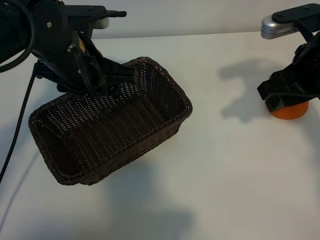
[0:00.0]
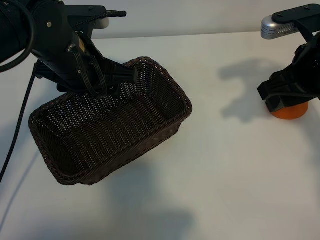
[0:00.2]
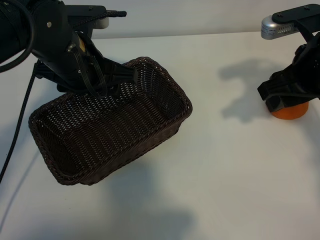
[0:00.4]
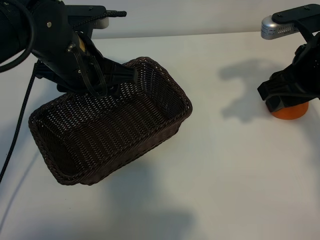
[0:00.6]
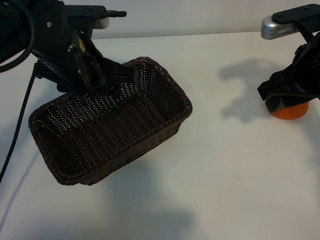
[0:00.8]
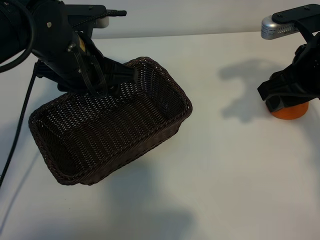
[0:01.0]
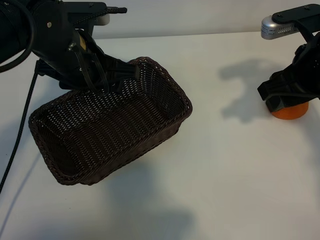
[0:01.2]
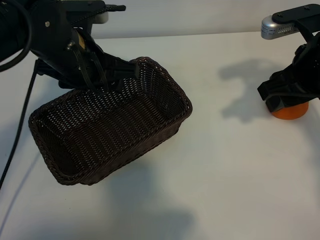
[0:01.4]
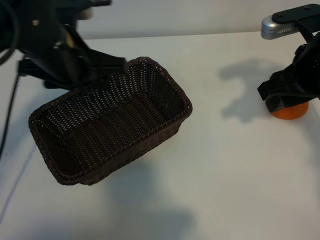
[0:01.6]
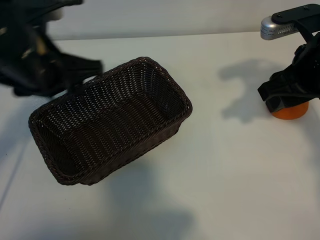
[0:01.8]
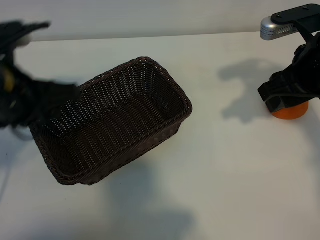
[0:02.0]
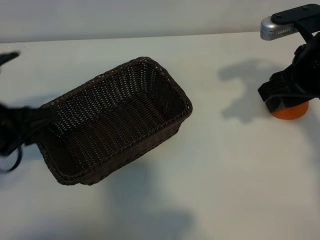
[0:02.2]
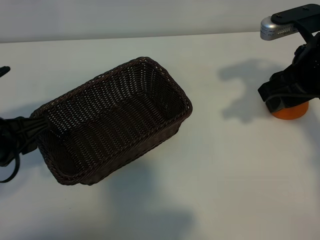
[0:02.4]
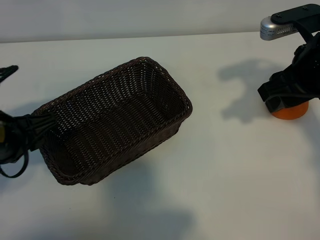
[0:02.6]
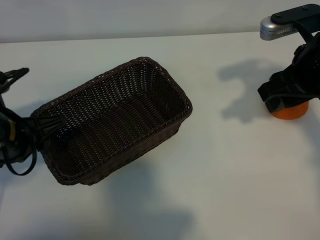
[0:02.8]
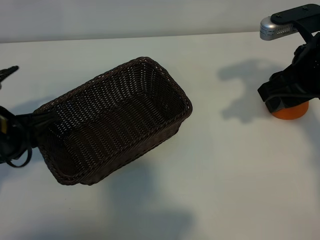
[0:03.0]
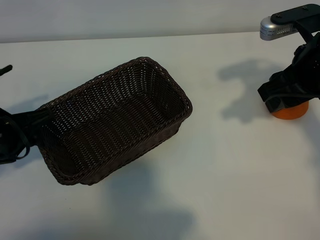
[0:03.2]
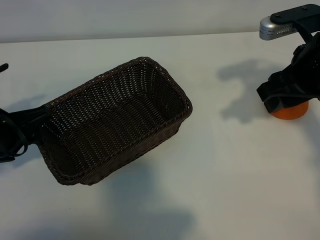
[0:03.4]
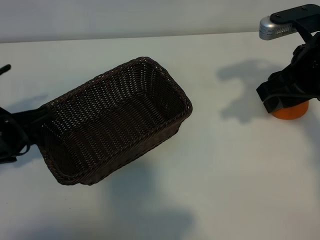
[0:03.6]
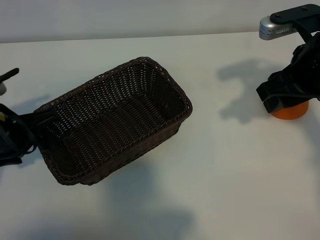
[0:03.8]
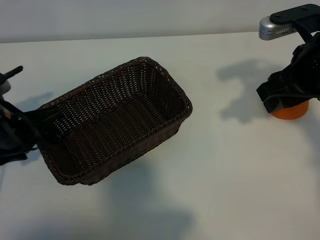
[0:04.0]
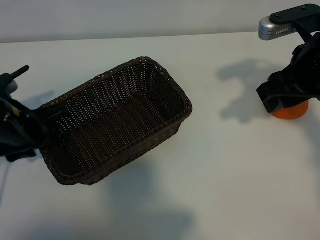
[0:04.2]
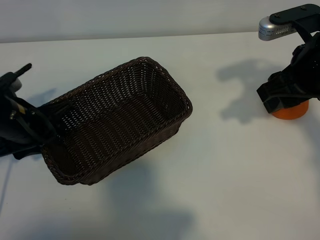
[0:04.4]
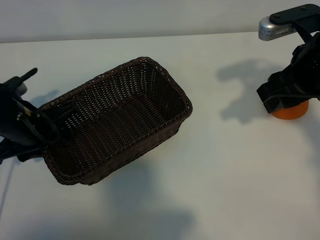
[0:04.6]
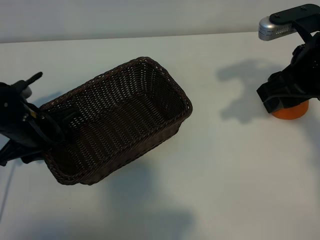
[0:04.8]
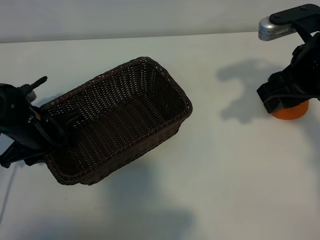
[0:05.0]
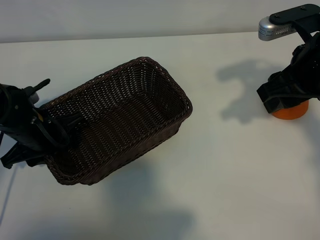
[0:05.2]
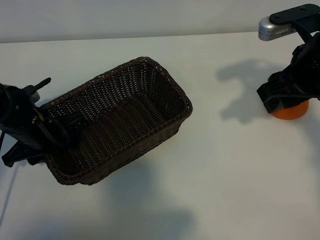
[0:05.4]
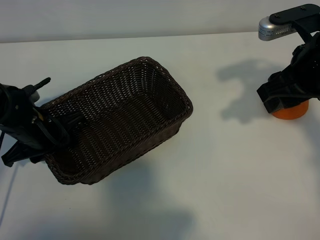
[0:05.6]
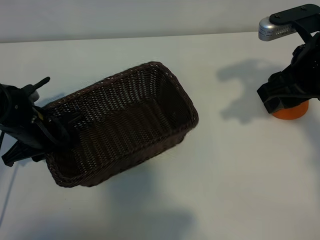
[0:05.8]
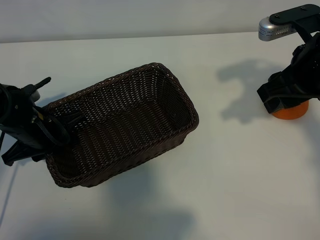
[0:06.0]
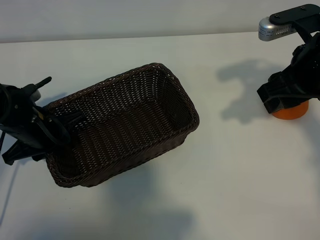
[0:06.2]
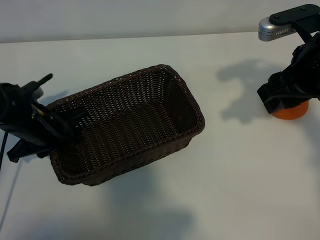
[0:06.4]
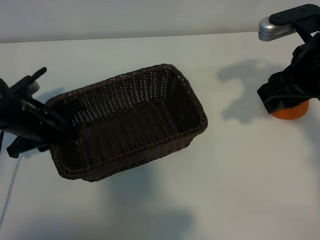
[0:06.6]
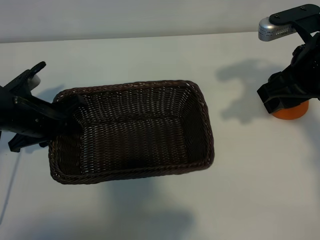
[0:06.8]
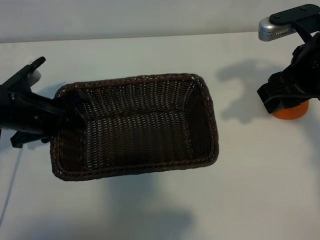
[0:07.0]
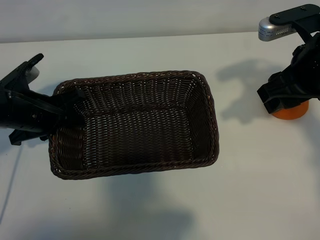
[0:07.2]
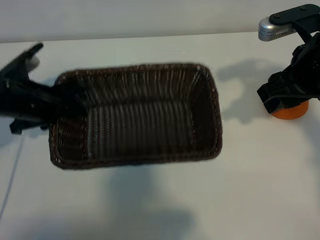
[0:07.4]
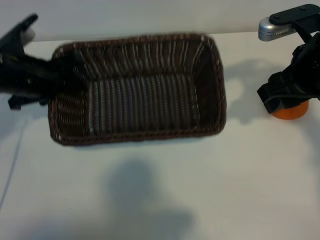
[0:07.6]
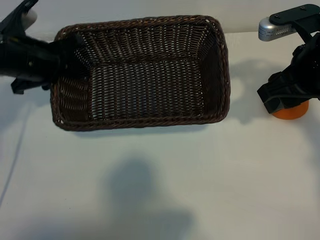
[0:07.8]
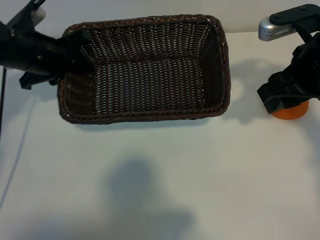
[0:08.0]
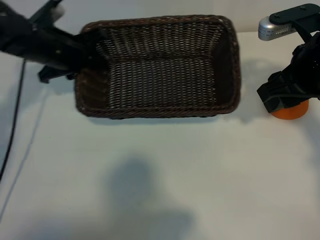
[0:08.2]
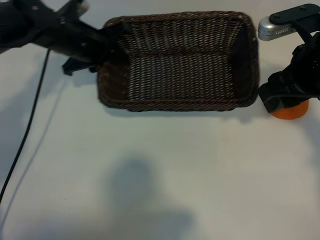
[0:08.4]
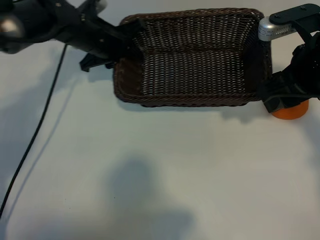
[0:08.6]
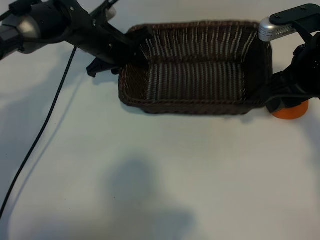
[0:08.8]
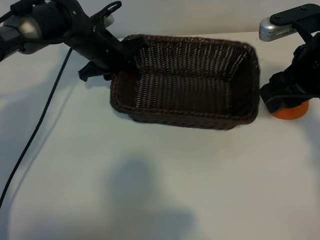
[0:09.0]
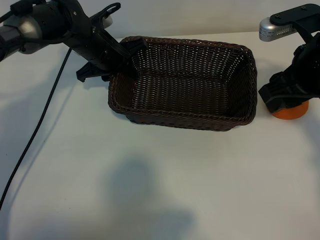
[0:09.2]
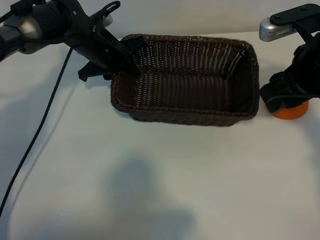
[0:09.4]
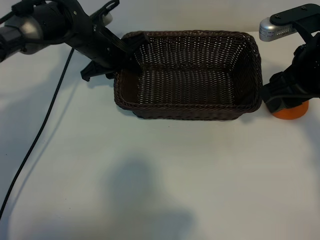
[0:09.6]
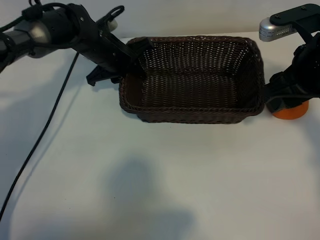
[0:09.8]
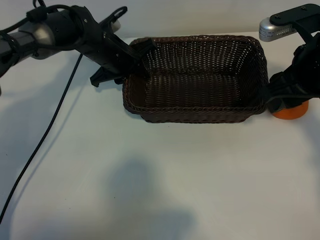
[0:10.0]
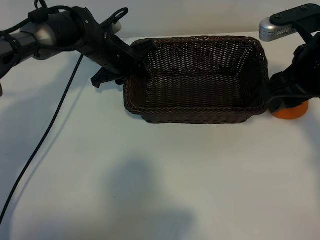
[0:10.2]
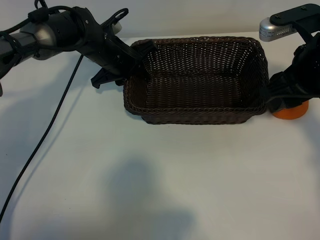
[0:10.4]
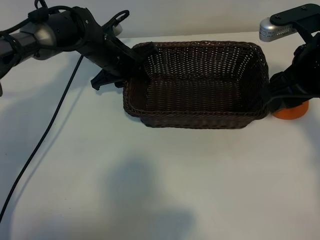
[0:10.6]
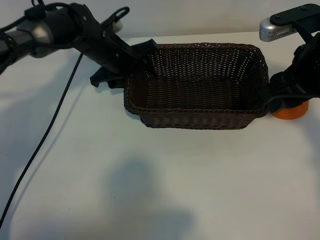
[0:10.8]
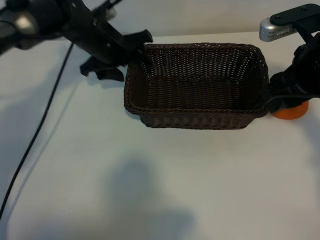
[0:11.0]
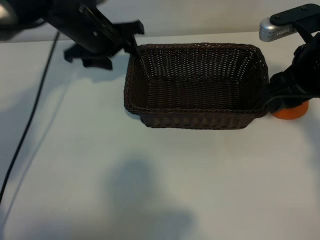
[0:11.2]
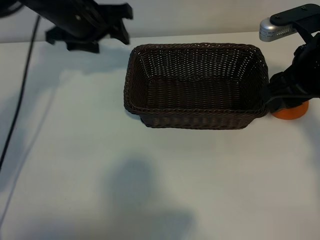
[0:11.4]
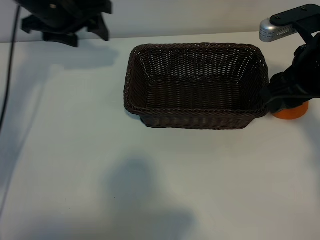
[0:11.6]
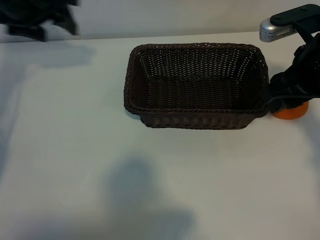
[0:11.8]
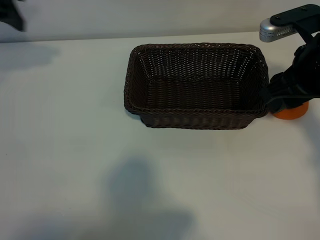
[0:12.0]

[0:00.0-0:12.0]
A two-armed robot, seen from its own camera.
Task of the whole recording: pick up the orange and put it into the basket.
Step, 0:01.0 to 0:05.8: Grasp the basket with left gripper.
Step, 0:06.0 to 0:10.6: Place the basket in the center of view with left gripper.

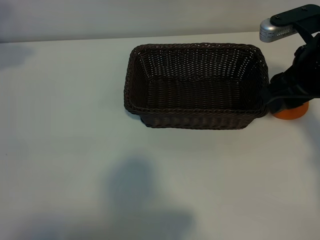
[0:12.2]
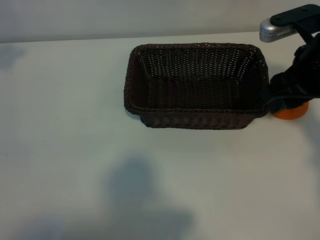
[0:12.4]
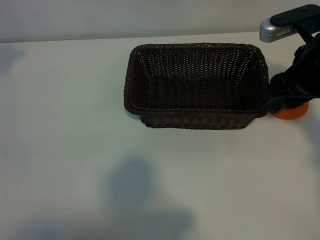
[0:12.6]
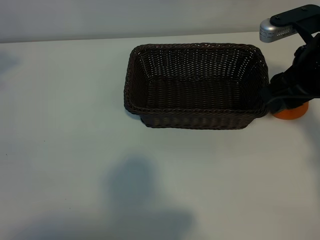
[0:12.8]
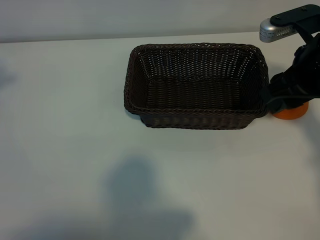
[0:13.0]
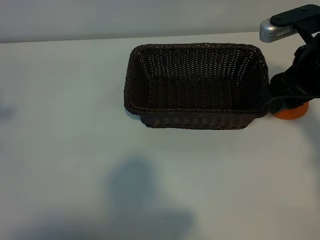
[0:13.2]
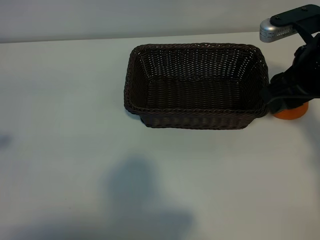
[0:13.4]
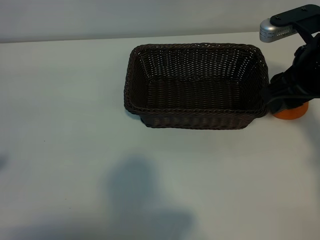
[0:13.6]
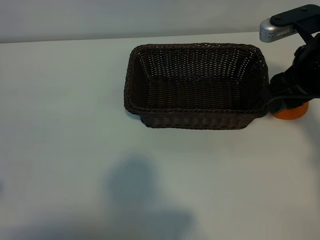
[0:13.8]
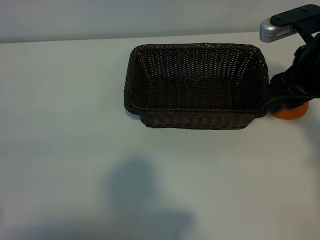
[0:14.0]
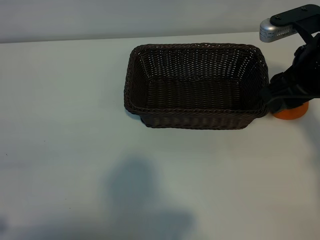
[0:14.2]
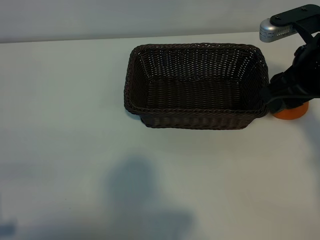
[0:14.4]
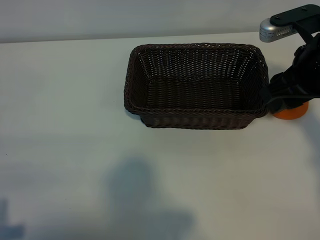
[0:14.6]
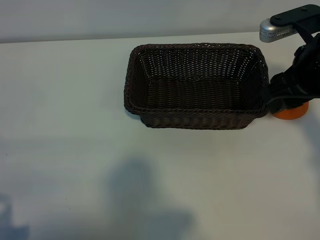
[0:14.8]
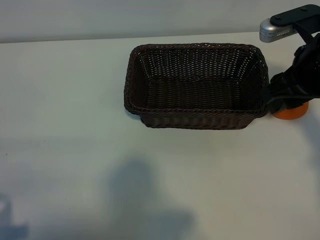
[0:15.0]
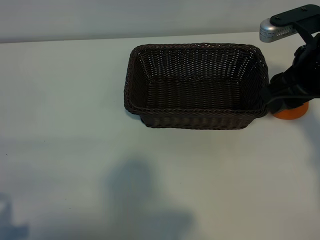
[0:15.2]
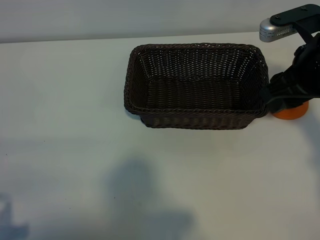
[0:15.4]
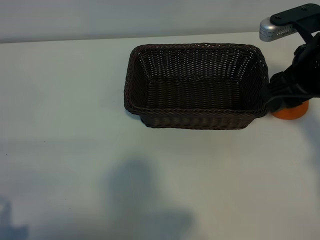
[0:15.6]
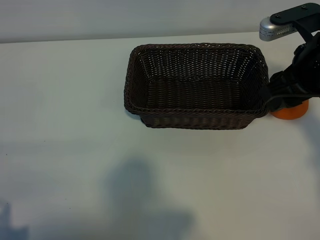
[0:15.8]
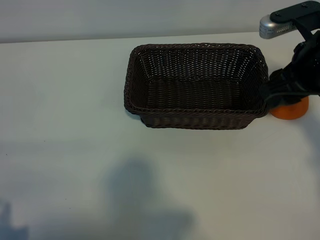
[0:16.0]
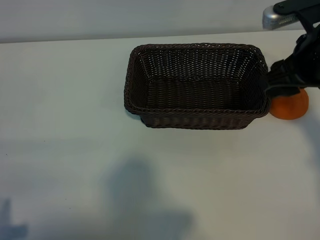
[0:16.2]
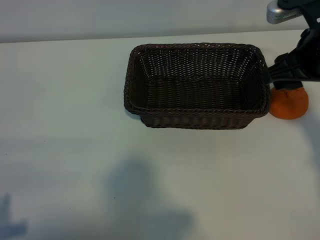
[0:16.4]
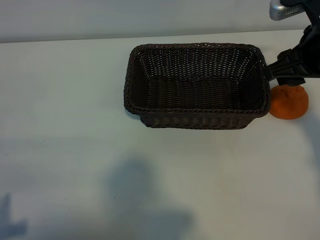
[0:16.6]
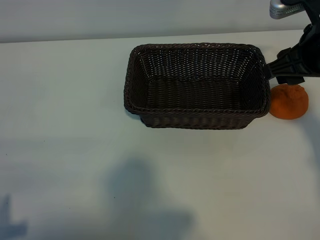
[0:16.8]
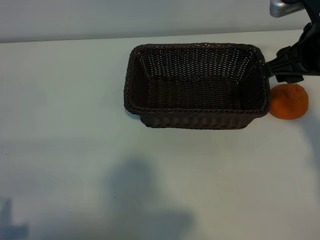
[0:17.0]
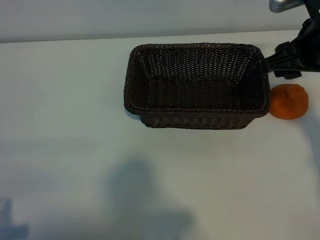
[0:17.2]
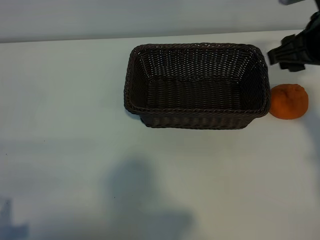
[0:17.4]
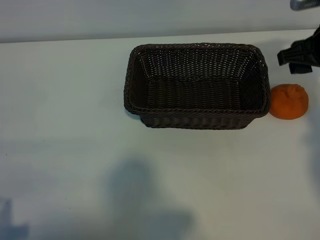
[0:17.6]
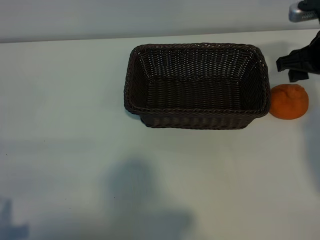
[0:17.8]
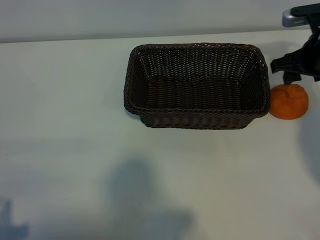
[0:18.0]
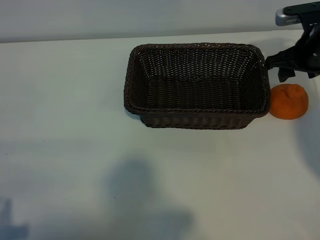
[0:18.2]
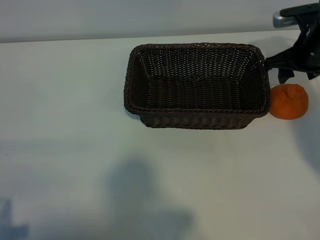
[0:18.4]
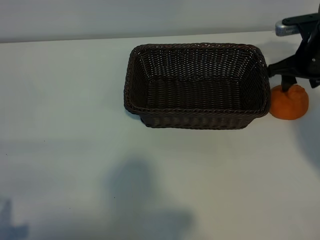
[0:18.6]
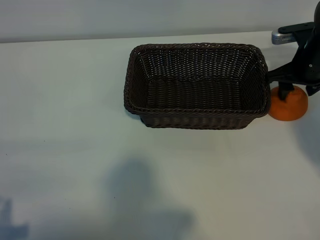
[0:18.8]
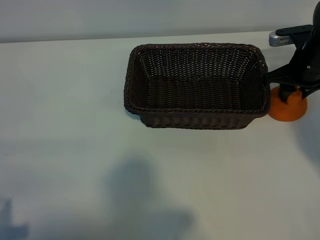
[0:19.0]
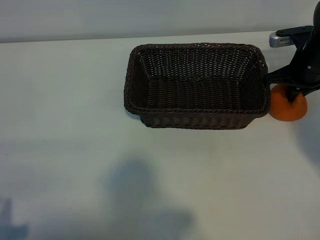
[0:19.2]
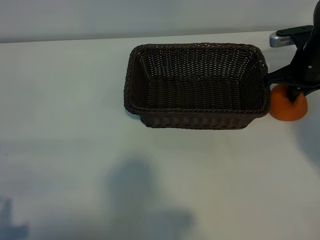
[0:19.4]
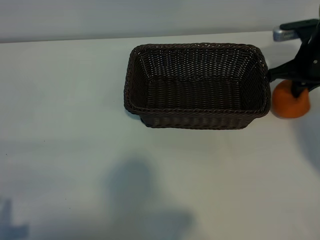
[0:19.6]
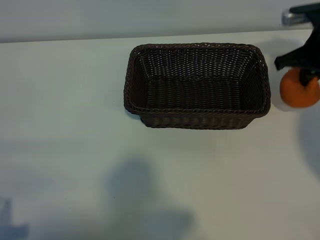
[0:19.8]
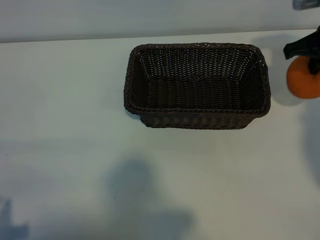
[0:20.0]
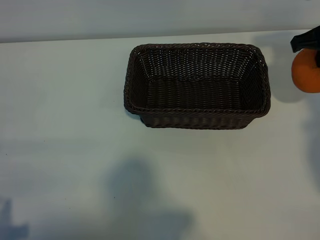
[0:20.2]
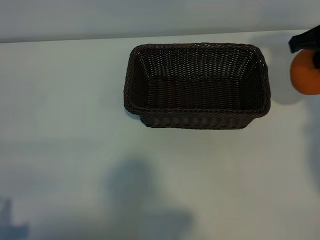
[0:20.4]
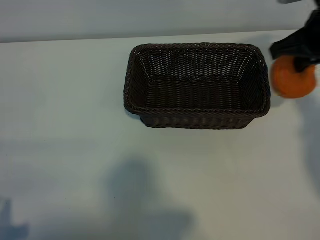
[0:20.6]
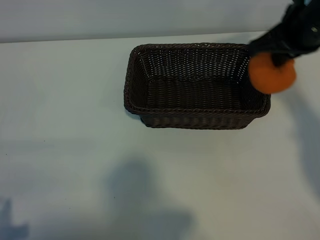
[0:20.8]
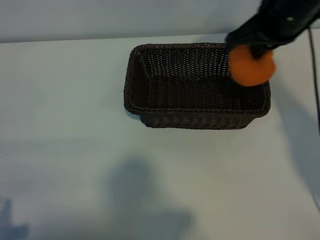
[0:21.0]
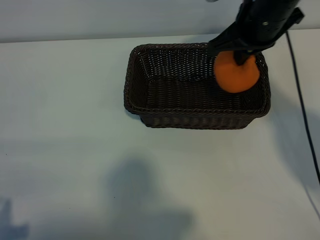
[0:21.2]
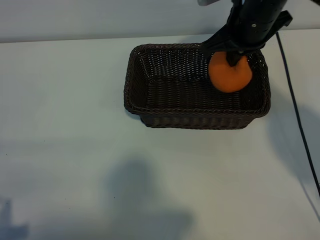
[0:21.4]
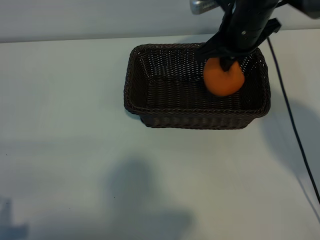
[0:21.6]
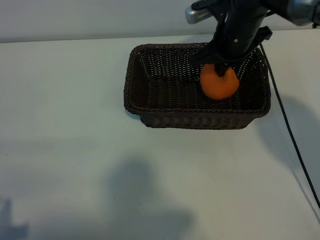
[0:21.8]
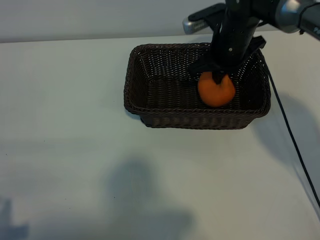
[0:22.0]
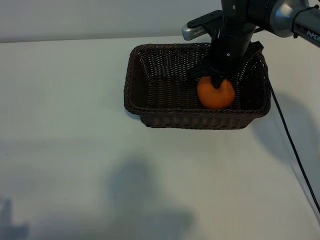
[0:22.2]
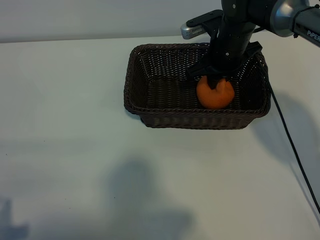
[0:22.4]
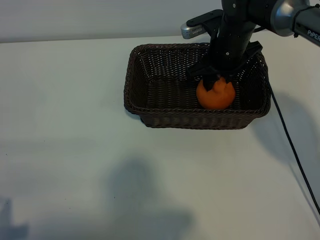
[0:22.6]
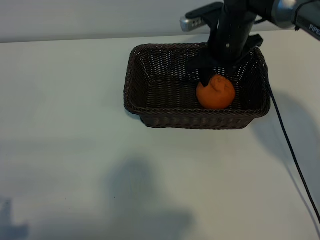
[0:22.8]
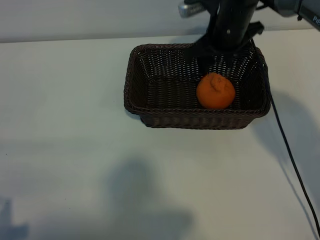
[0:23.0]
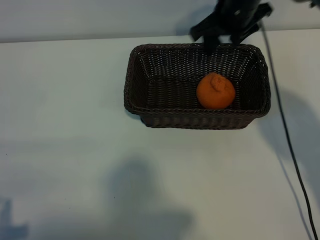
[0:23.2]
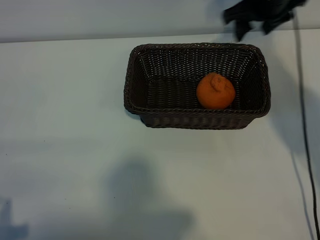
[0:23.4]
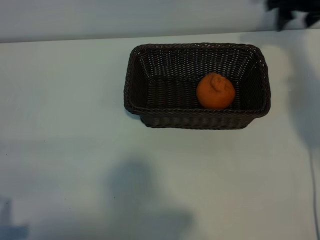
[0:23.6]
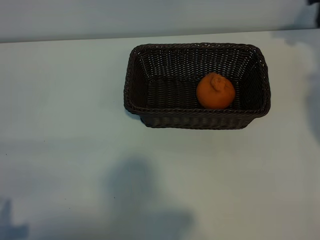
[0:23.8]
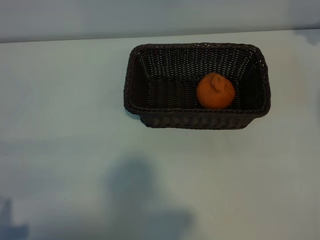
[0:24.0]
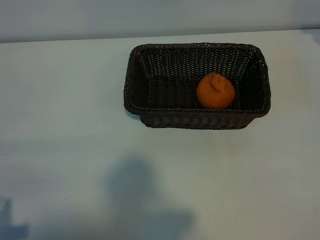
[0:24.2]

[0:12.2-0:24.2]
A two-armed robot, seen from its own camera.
Task of the whole recording: pick up the orange and put it into the basket.
Step, 0:12.2 to 0:19.2: Grasp the orange with right gripper.
Step, 0:19.4 to 0:22.6: Place the orange in the basket with right gripper.
